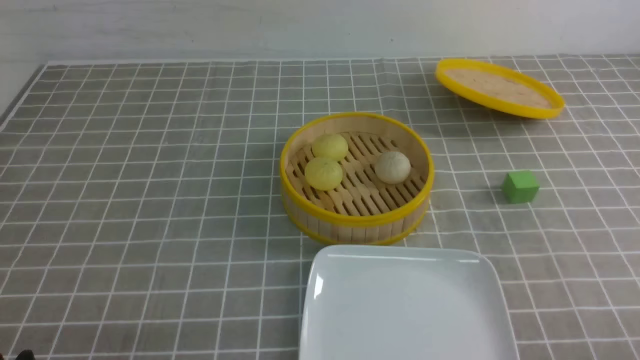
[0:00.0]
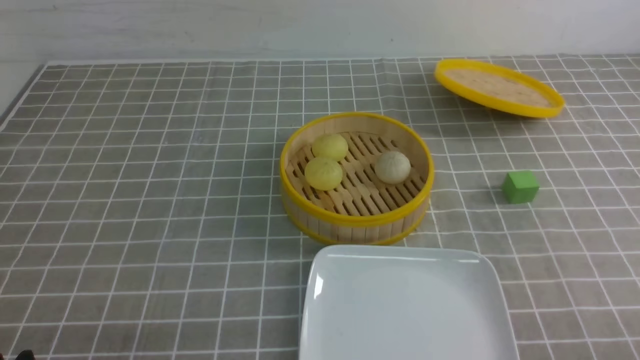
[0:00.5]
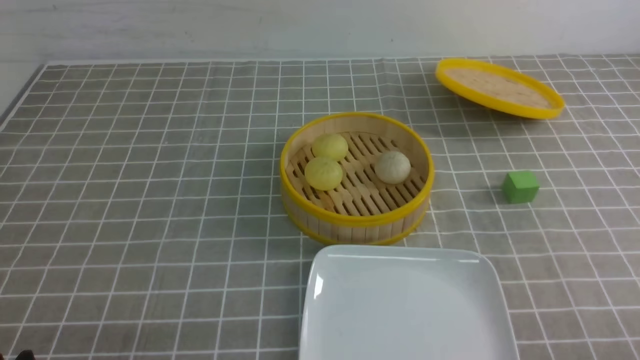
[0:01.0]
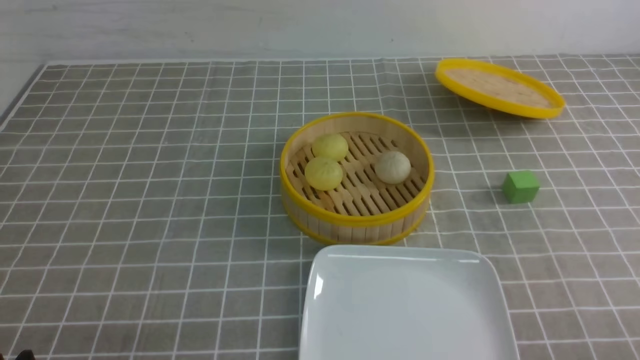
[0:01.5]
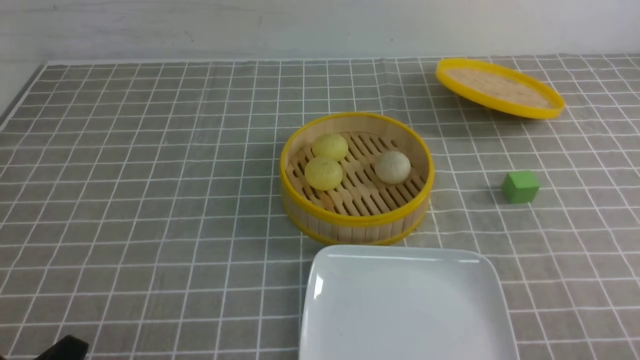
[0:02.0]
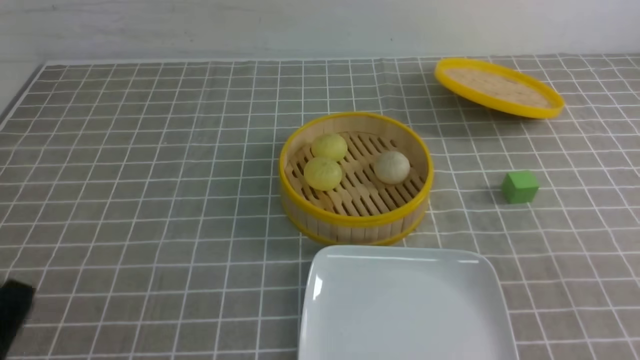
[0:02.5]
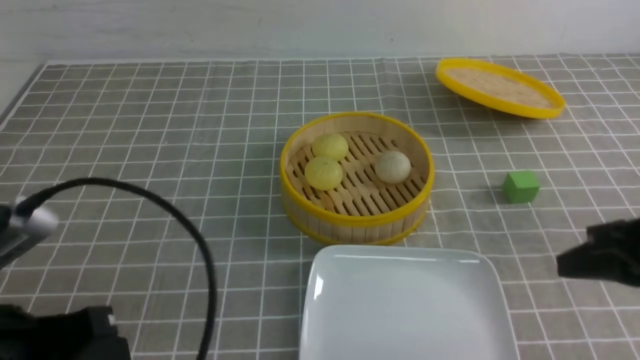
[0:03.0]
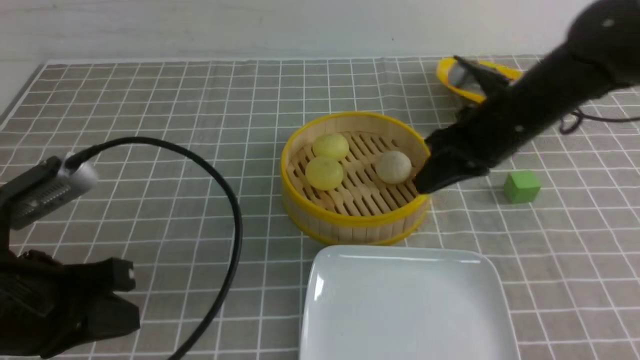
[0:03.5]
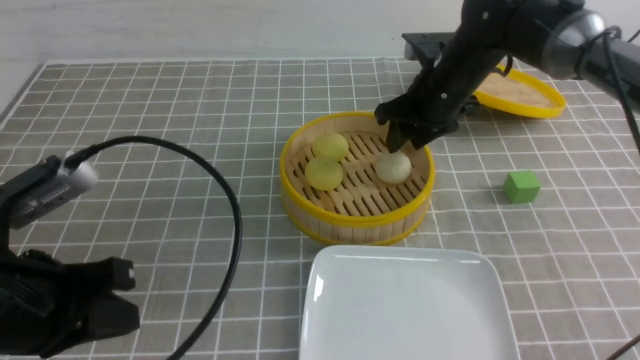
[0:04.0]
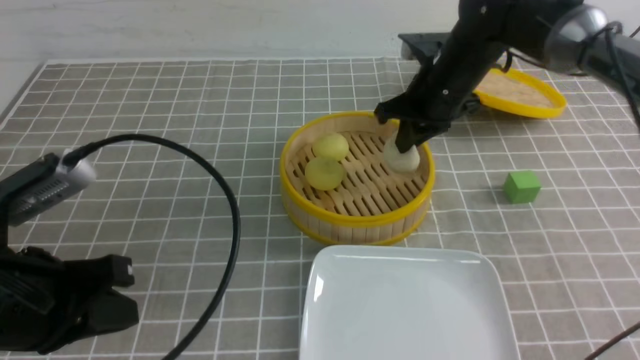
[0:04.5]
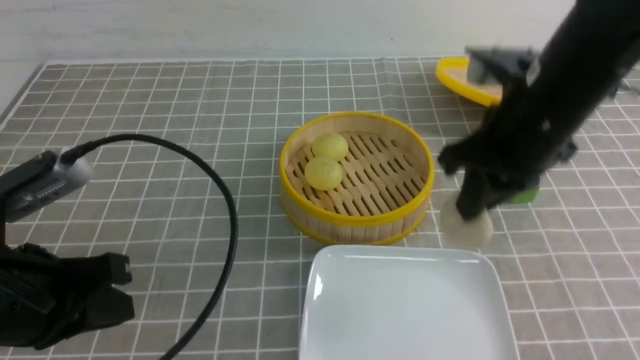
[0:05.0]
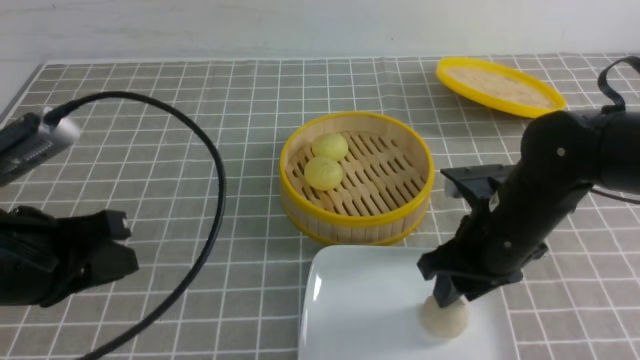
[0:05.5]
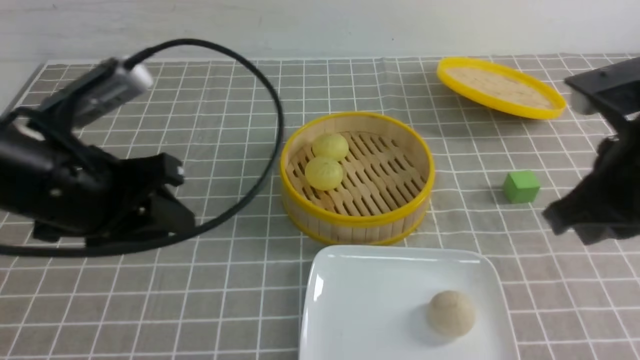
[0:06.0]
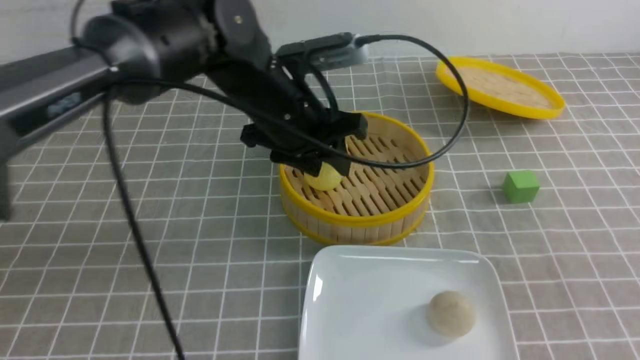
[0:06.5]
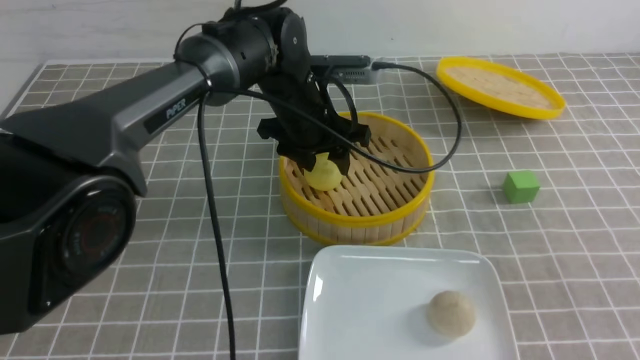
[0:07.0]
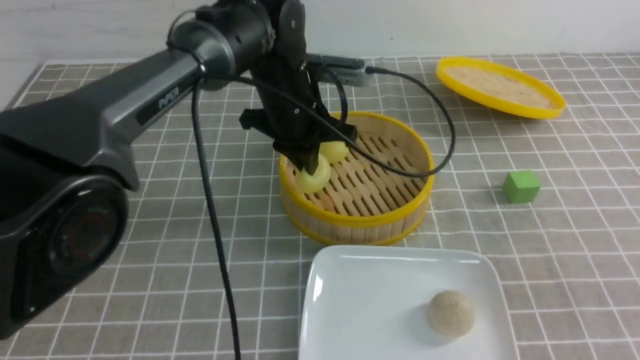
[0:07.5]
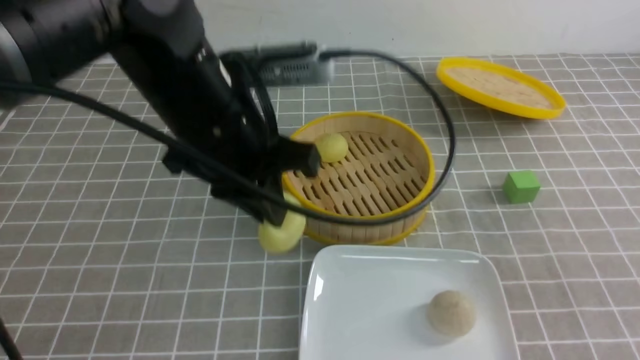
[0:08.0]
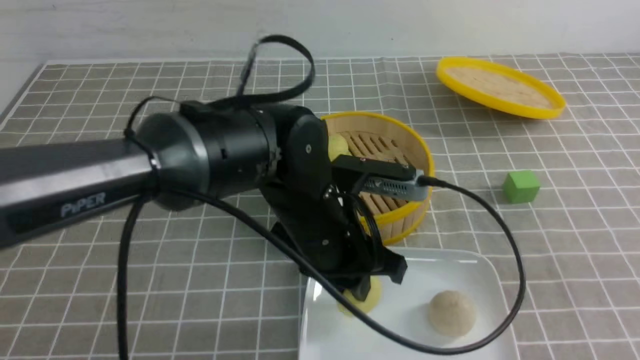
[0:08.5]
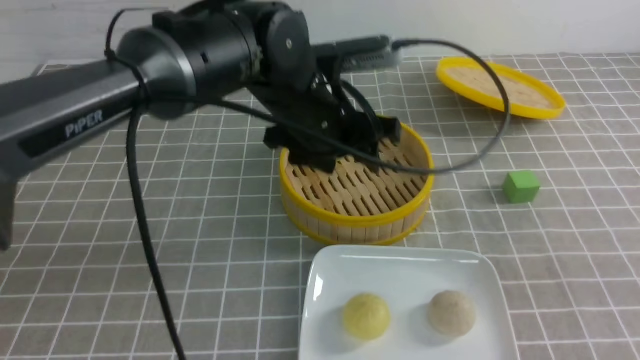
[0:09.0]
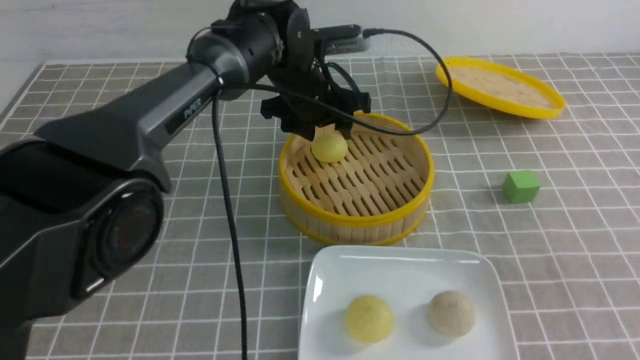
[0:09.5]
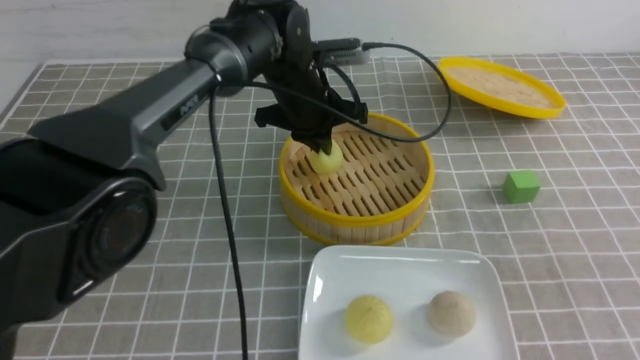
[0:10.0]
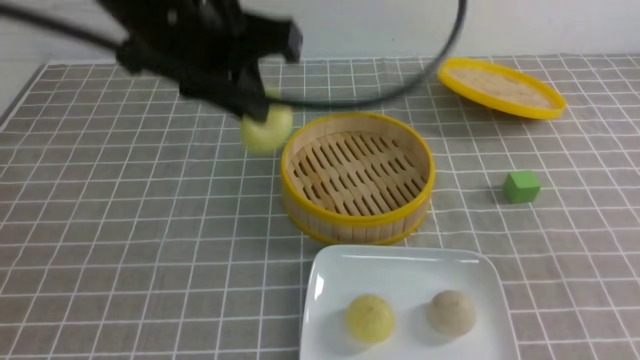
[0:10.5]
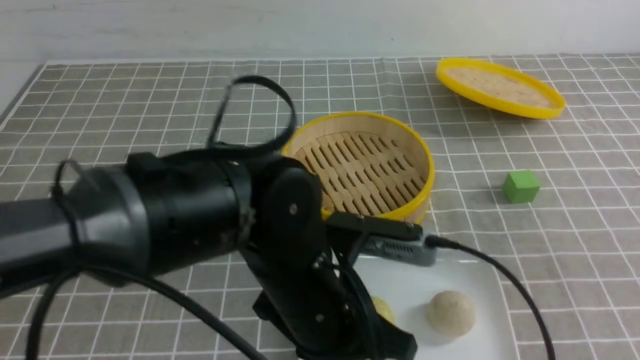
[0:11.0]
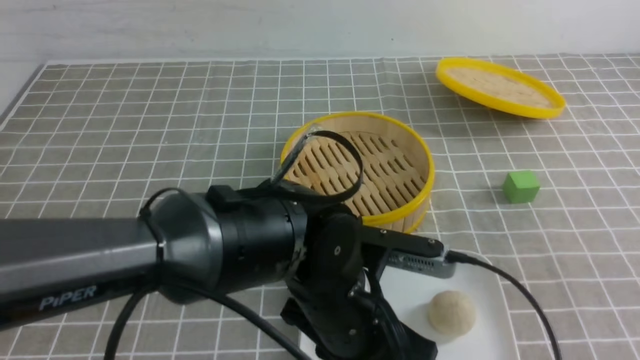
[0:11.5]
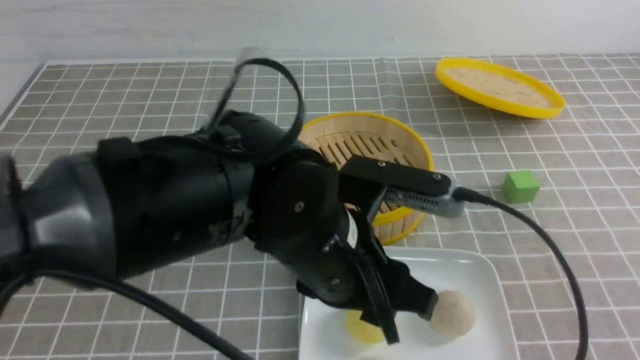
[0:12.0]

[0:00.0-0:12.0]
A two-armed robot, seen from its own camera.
Step, 0:00.0 to 0:04.0: use the right arm to grab the steamed stuffed bun that is closest to it.
Step, 0:04.5 to 0:05.0: use the right arm to put the steamed stuffed bun into the plate.
Step, 0:05.5 to 0:07.0: use the left arm to grab the steamed stuffed bun that is closest to it.
Step, 0:07.5 to 0:08.5: use the left arm to put the steamed stuffed bun into the plate.
Step, 0:09.0 to 0:10.0: use the left arm to grab the steamed stuffed bun that is closest to it.
Step, 0:10.5 to 0:11.5: use the left arm to put the steamed stuffed bun into the plate.
0:02.0 to 0:04.0: The left gripper shifts about 15 cm upward and forward, and closes; the right gripper shifts approximately 40 cm forward and to the left, and closes, then reopens.
0:04.0 to 0:06.0: The right gripper moves backward, some 25 cm, and closes its fingers. The left gripper is displaced forward by some 10 cm, and opens.
0:06.0 to 0:08.0: The left gripper is displaced to the right by approximately 10 cm, moves some 20 cm forward and comes back, and closes up. Meanwhile the right gripper travels backward and to the right by about 15 cm.
0:08.0 to 0:10.0: The left gripper moves forward, roughly 15 cm, and opens and closes again.
0:10.0 to 0:12.0: The left gripper goes some 25 cm backward, and opens up; the right gripper heads backward, covering about 10 cm.

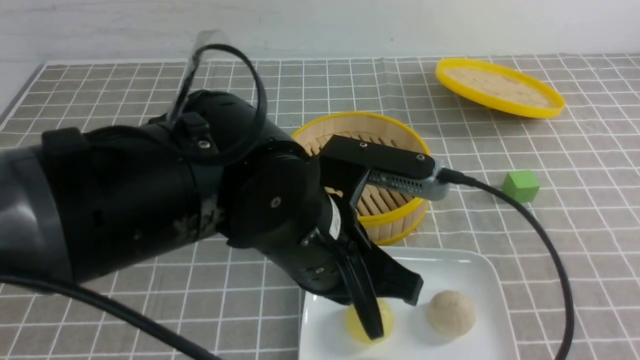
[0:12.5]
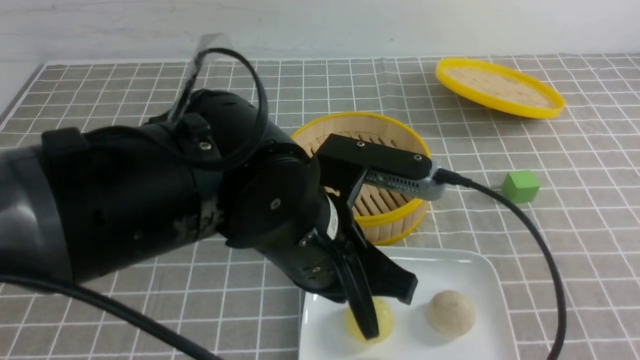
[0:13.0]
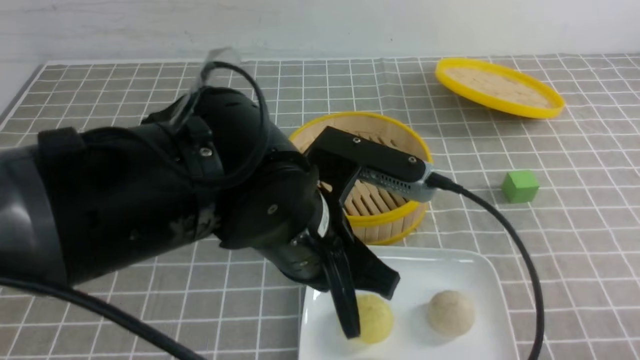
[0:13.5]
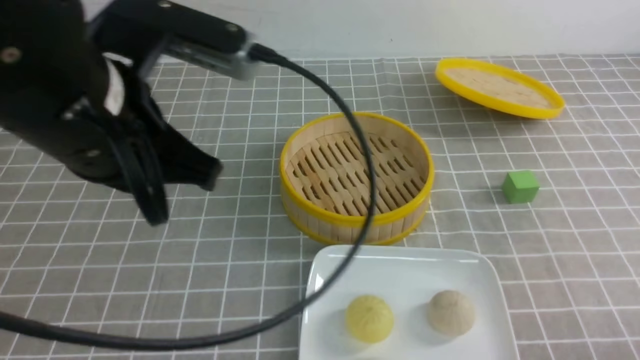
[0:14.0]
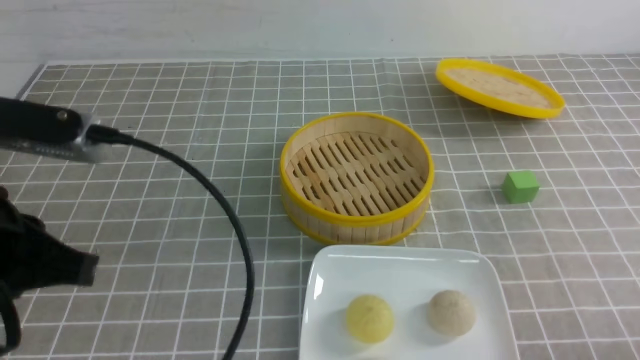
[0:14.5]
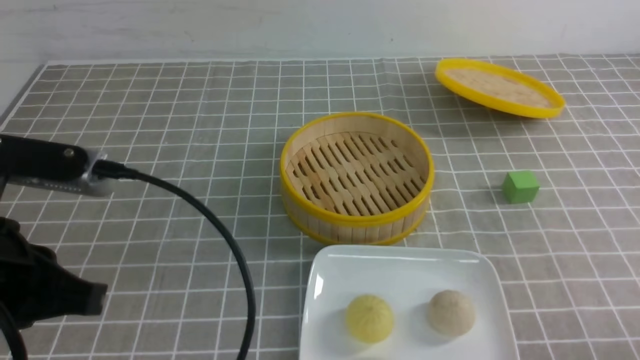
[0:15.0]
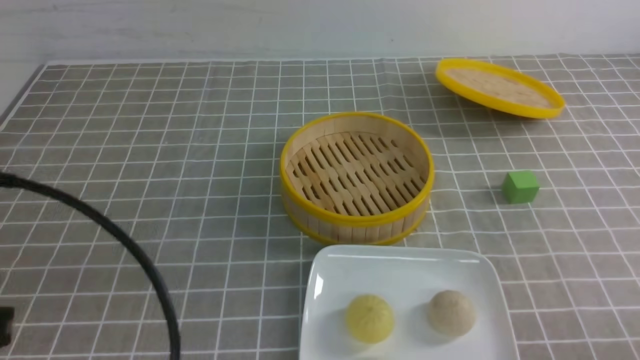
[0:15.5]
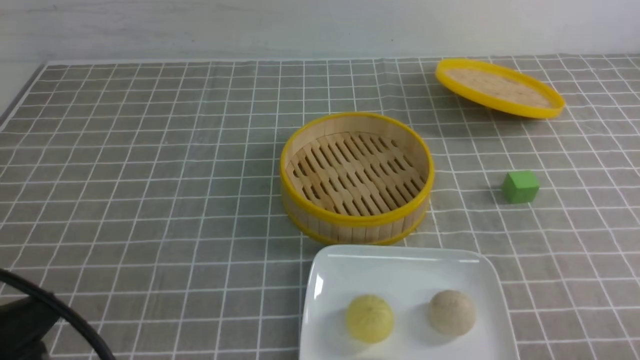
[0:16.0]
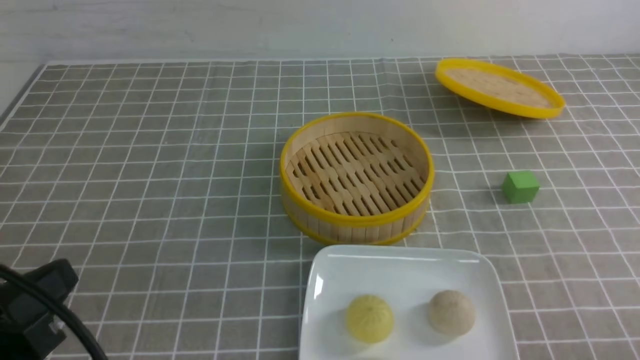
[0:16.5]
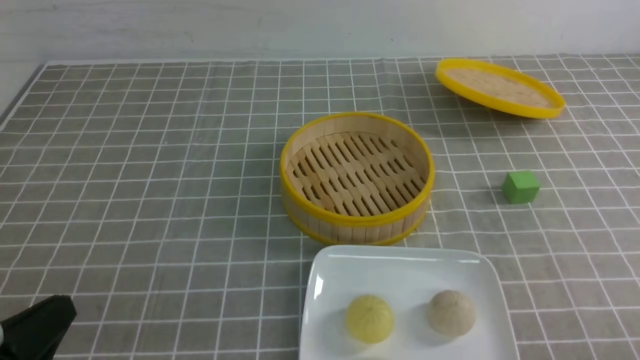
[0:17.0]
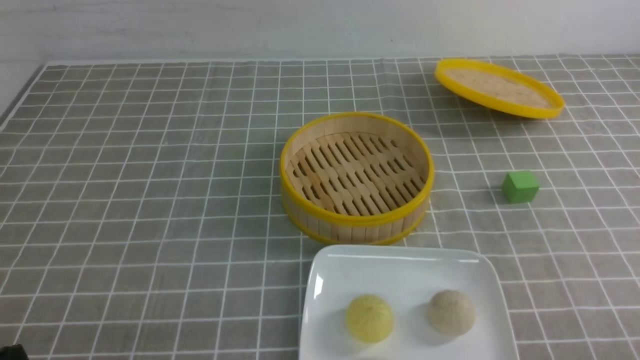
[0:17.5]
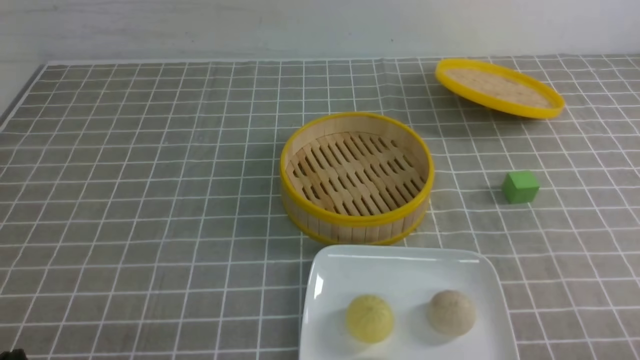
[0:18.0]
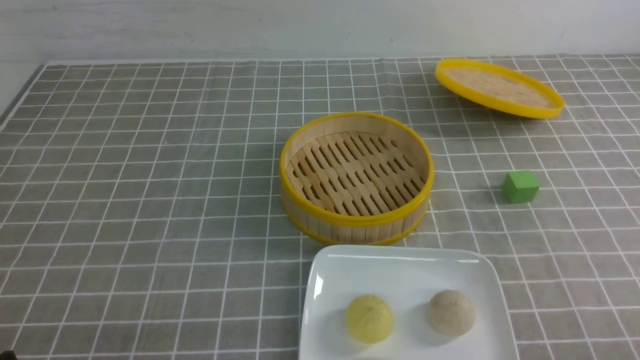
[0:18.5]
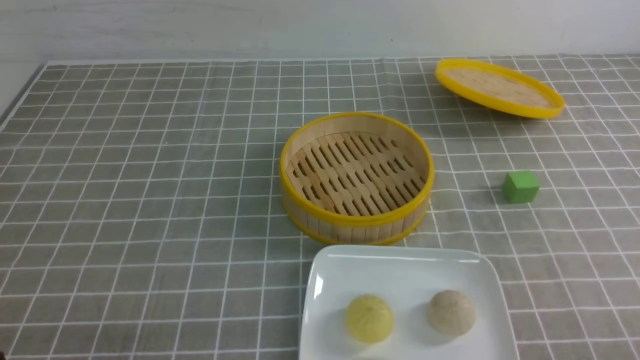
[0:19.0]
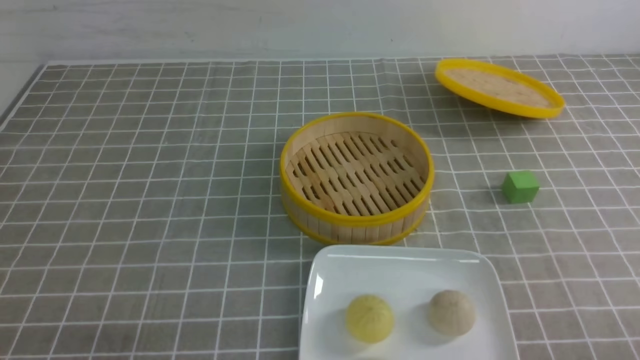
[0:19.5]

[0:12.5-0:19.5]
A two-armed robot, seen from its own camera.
0:12.5 to 0:14.5: The left gripper heads to the left, covering some 20 cm, while the right gripper travels downward by roughly 10 cm.
0:14.5 to 0:16.0: The left gripper moves backward, roughly 10 cm.
0:16.0 to 0:17.5: The left gripper travels downward by approximately 10 cm.
